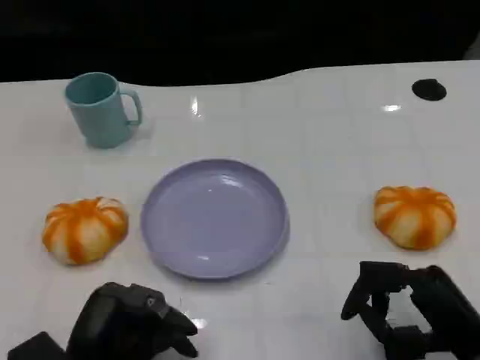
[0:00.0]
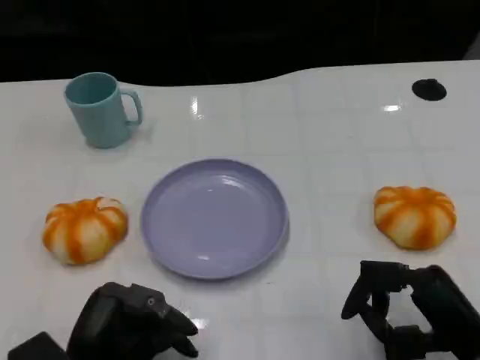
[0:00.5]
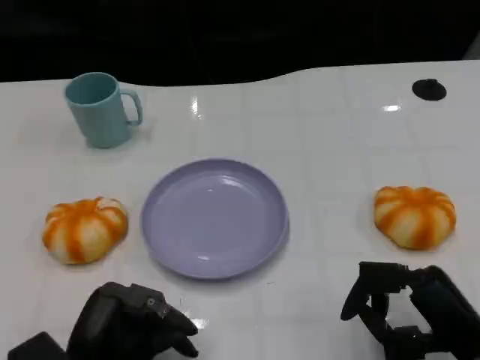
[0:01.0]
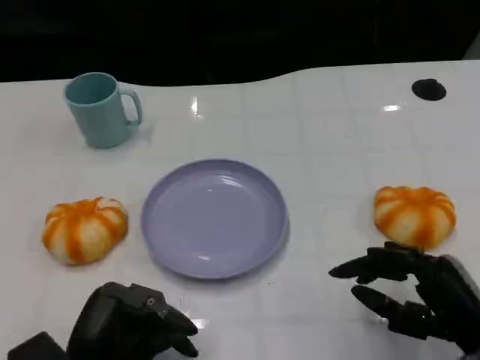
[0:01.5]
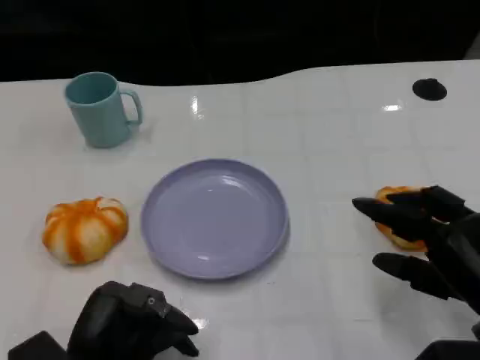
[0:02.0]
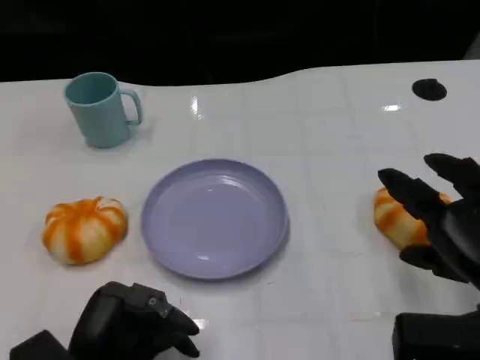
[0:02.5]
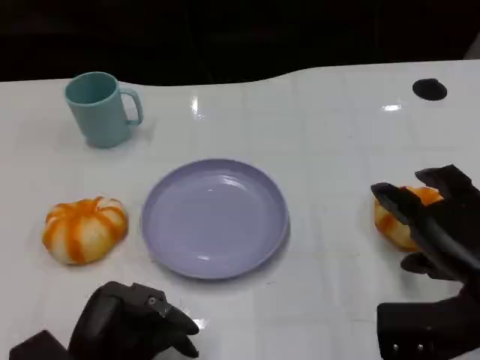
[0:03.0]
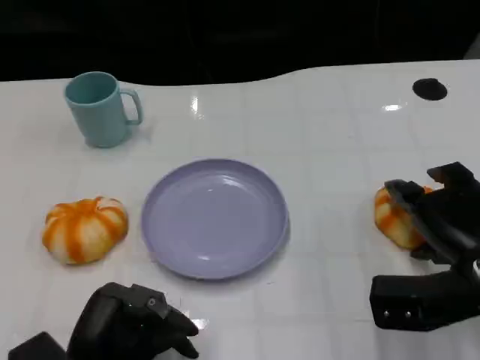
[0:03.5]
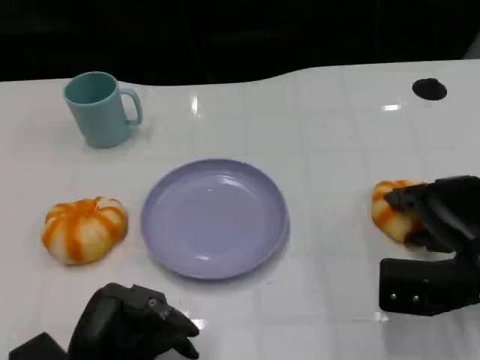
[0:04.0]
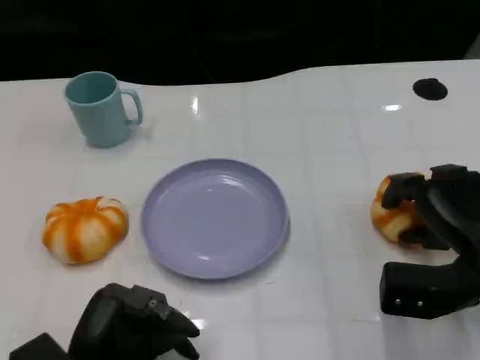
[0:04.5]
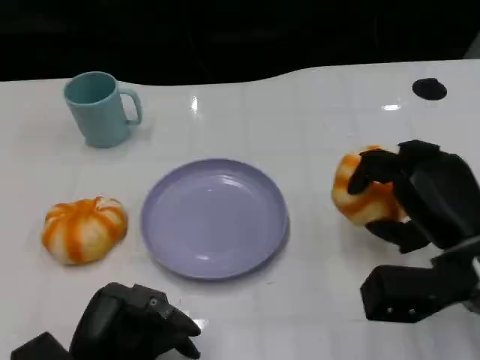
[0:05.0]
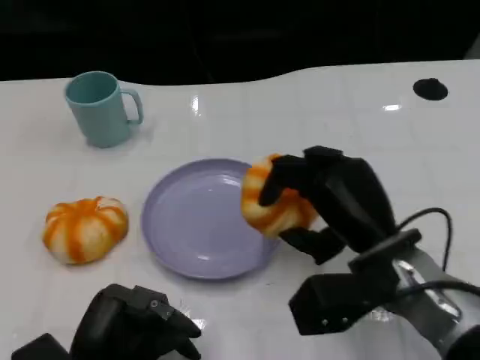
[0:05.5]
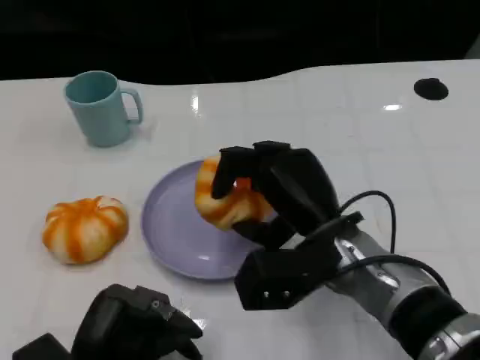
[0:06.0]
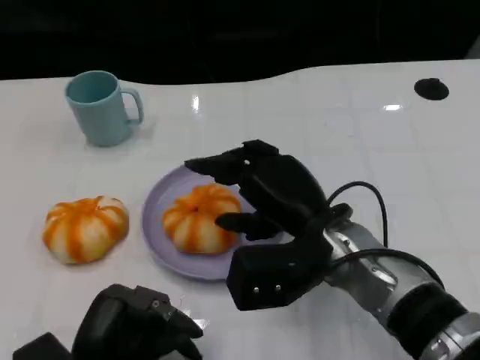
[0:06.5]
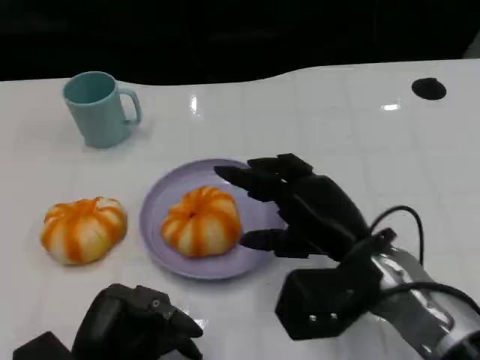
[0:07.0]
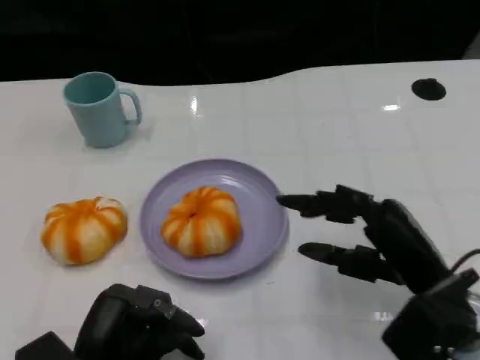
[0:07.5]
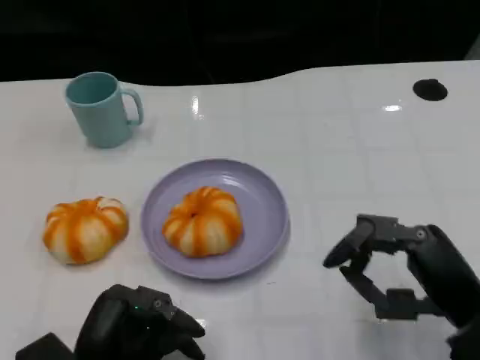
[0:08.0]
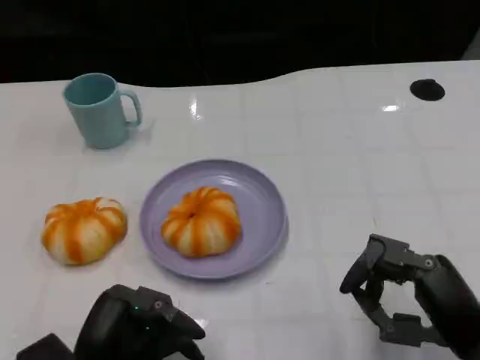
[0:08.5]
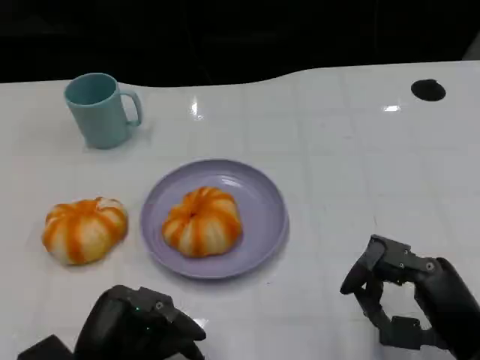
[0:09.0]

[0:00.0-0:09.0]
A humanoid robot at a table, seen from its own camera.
Task of the whole recording: Grasp the bread from the table and place it into the plate.
0:02.0 to 0:04.5: The right hand travels forward by approximately 5 cm.
0:04.5 to 0:07.0: The right hand travels to the left by approximately 10 cm.
0:07.0 to 0:09.0: The right hand travels to the right and backward by roughly 10 cm.

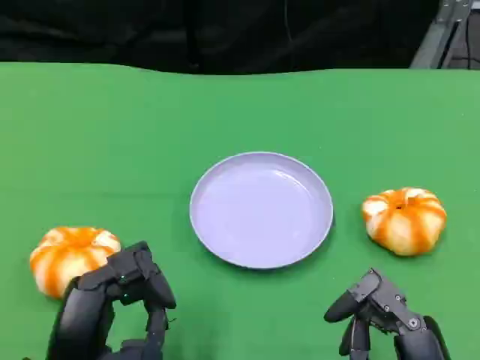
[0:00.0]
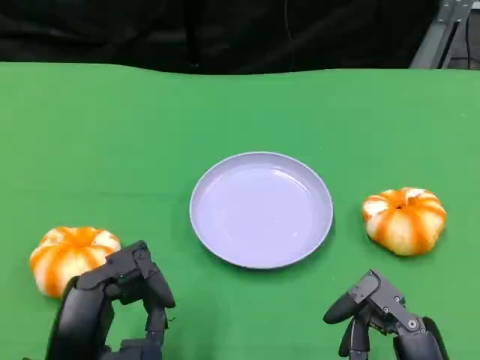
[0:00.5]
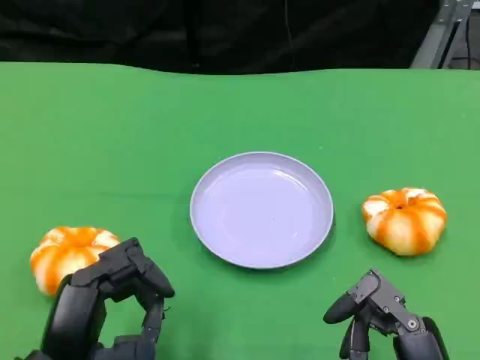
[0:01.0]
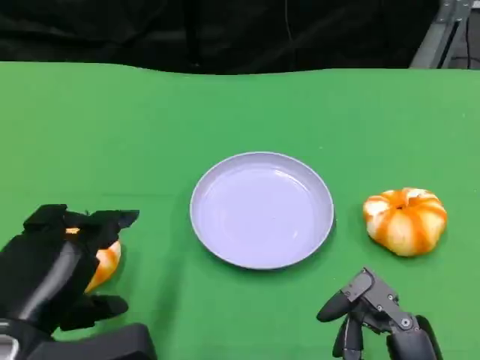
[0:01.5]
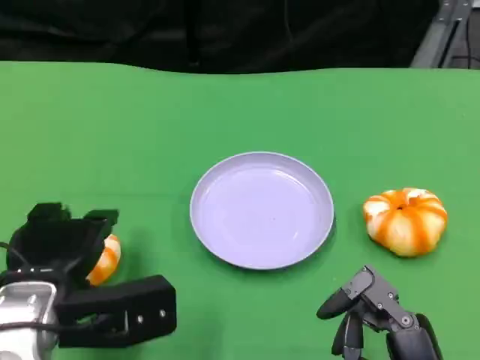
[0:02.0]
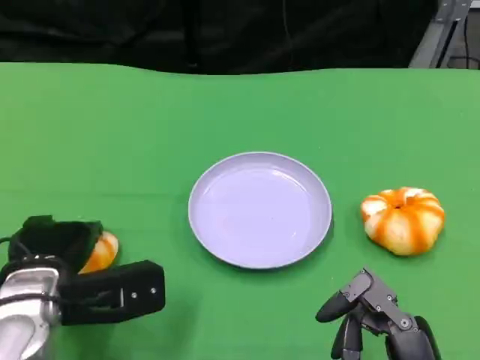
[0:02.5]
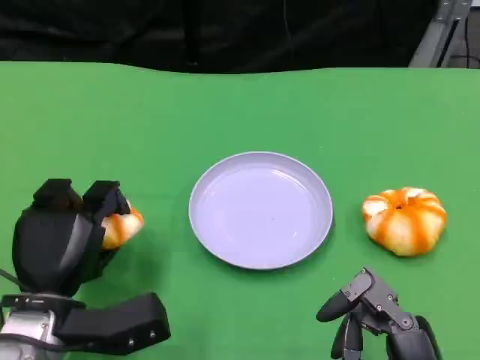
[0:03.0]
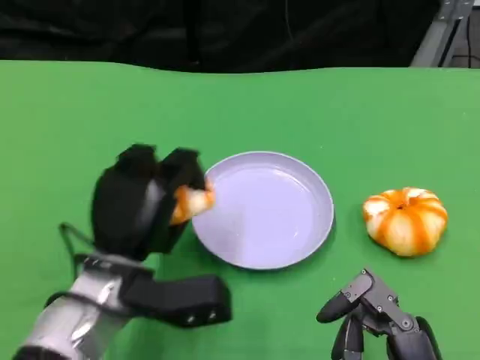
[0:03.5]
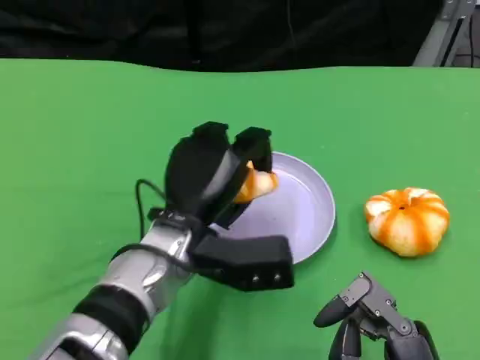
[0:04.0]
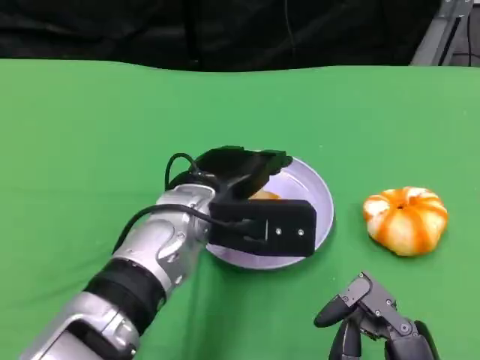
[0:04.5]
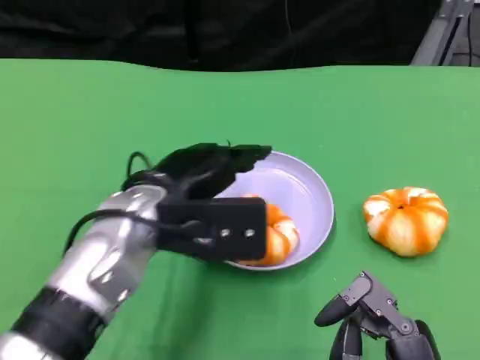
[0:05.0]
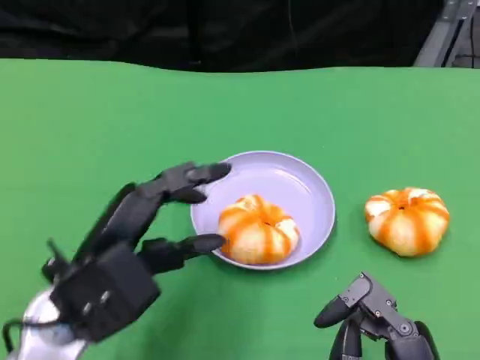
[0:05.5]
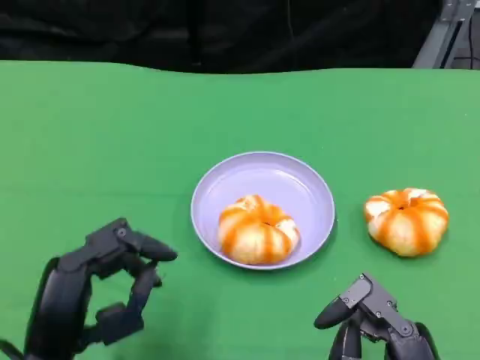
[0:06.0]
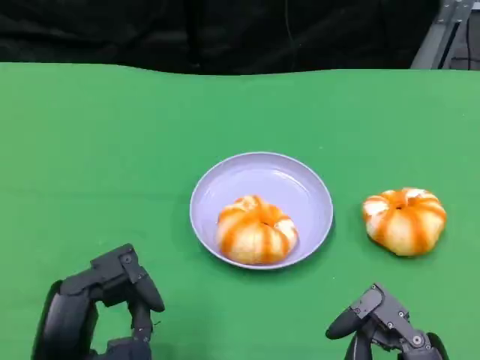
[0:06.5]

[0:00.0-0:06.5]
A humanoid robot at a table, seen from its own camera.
Task of the whole recording: Grasp the bread from the table and place it into the plate.
0:00.0 to 0:02.0: The left hand shifts about 10 cm forward.
0:02.0 to 0:04.5: The left hand goes approximately 15 cm to the right and forward.
0:04.5 to 0:06.5: The left hand is displaced backward and to the left by about 20 cm.

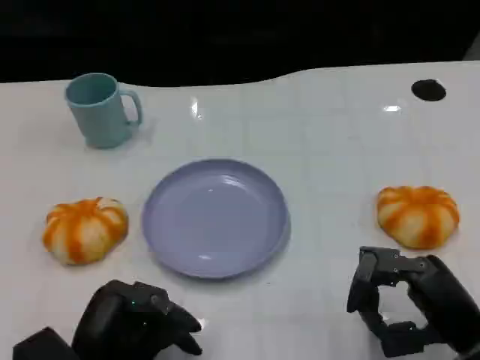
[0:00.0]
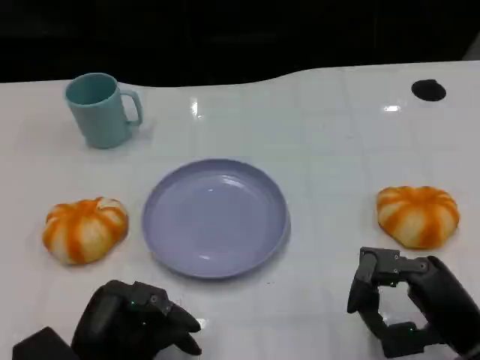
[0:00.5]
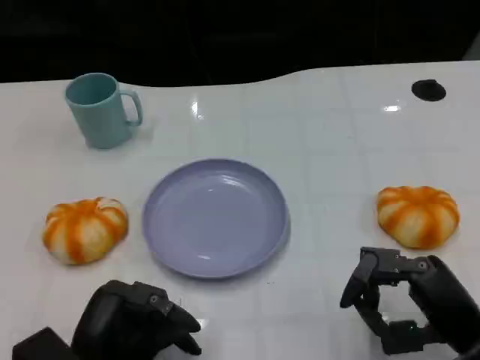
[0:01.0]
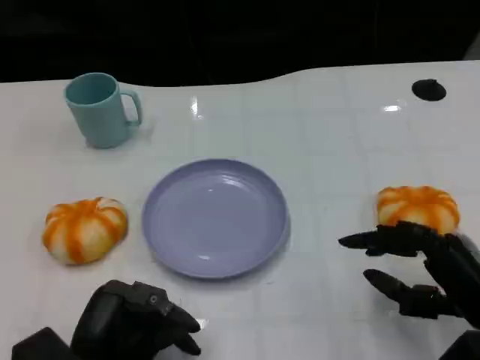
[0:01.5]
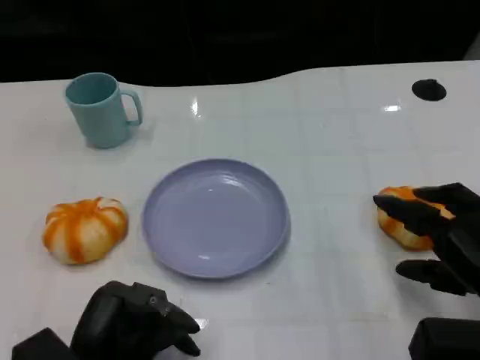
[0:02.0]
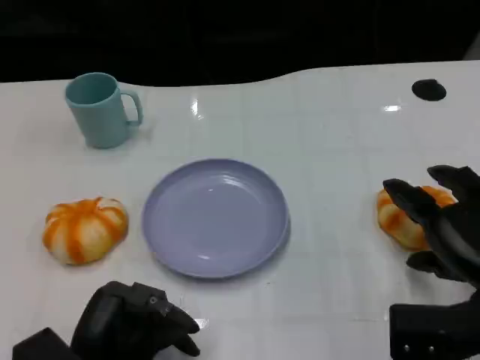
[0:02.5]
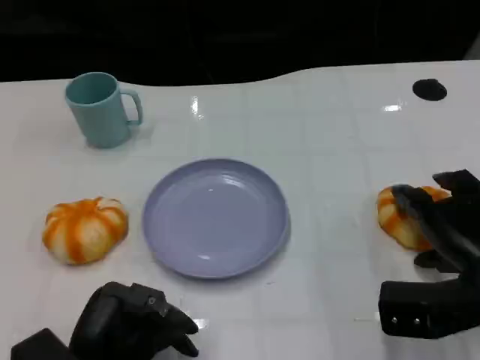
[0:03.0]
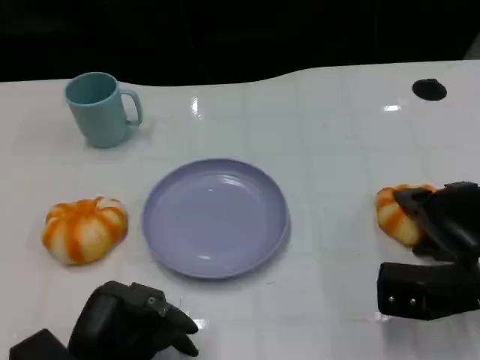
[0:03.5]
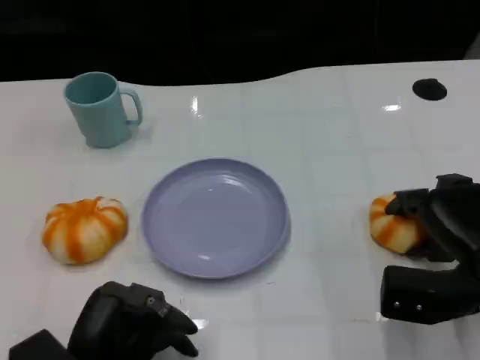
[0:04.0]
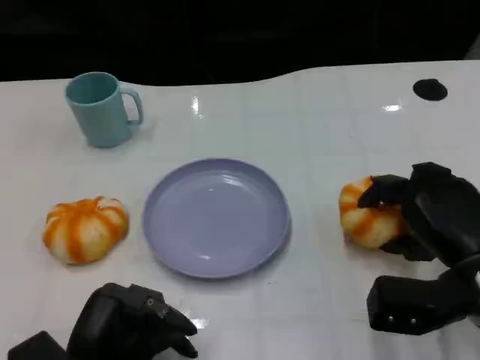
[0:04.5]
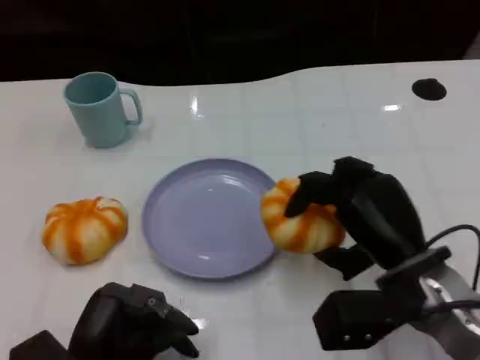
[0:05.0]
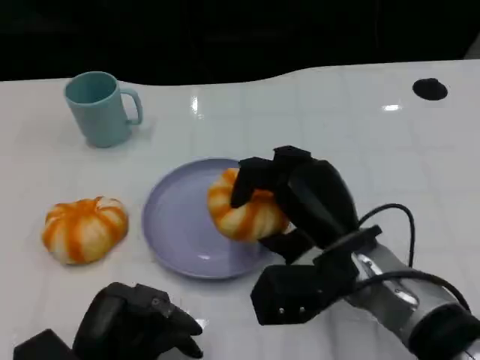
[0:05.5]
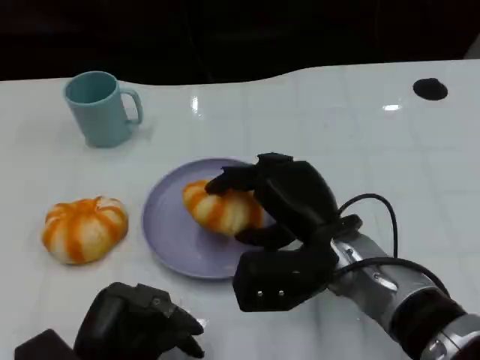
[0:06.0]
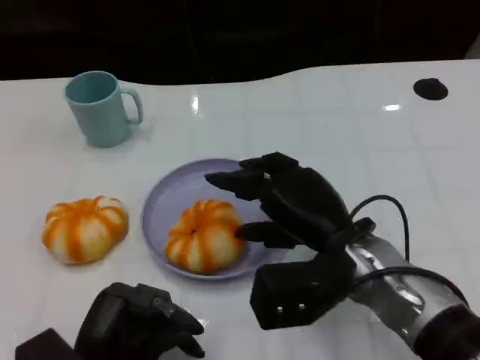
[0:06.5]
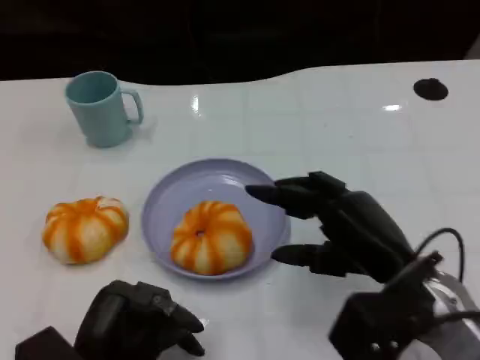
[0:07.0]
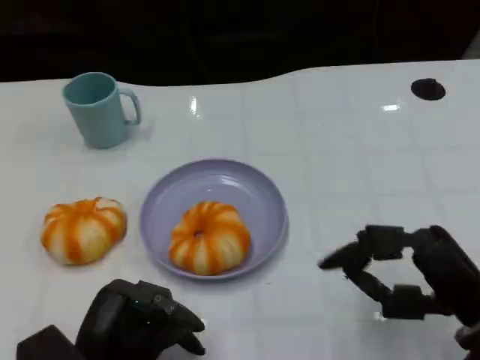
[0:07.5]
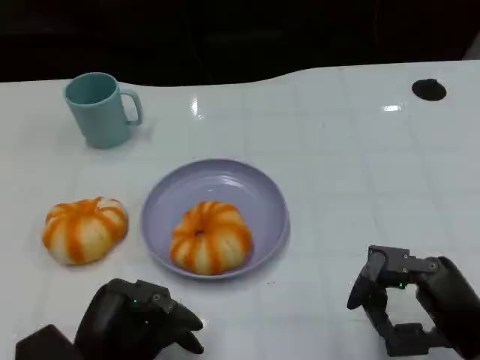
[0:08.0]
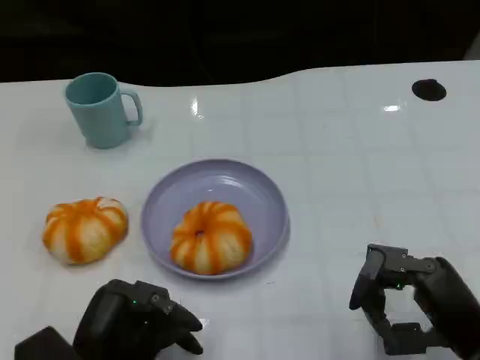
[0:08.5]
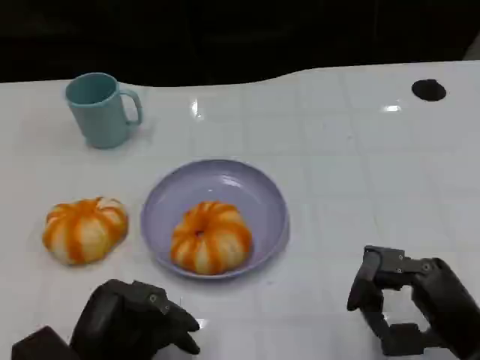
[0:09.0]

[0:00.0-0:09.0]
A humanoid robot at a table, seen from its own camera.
Task of the whole recording: Grasp the bread from the table and place it into the plate.
0:00.0 to 0:02.0: The right hand changes place by about 5 cm.
0:02.0 to 0:04.5: The right hand ends up some 5 cm from where it was.
0:04.5 to 0:07.0: The right hand moves to the left, about 5 cm.
0:07.0 to 0:09.0: The right hand moves to the right and backward, approximately 10 cm.

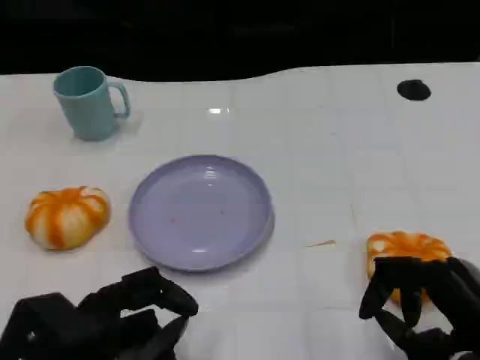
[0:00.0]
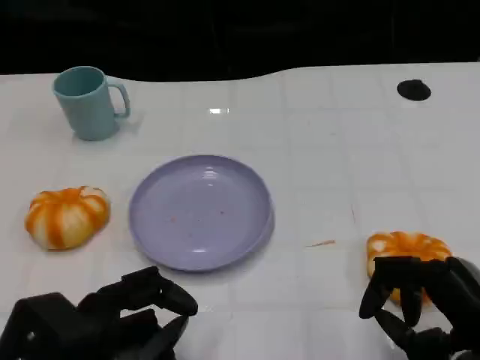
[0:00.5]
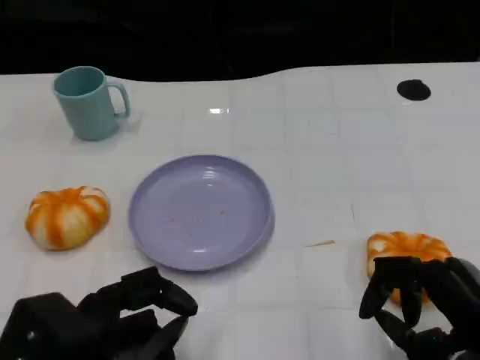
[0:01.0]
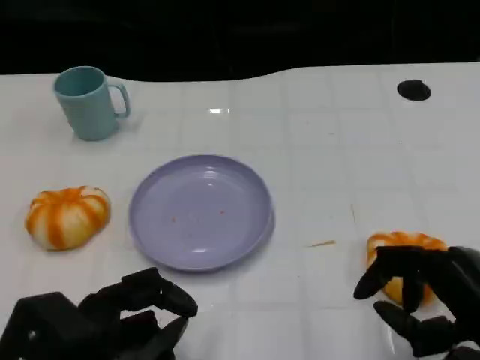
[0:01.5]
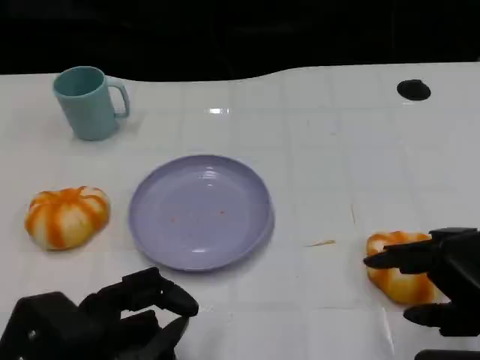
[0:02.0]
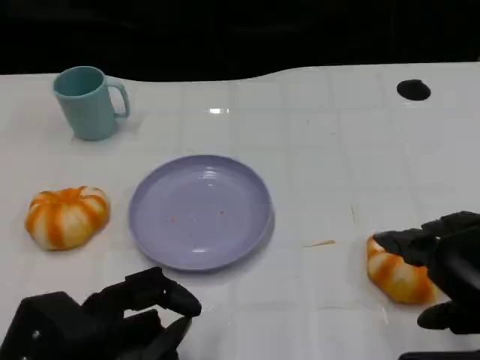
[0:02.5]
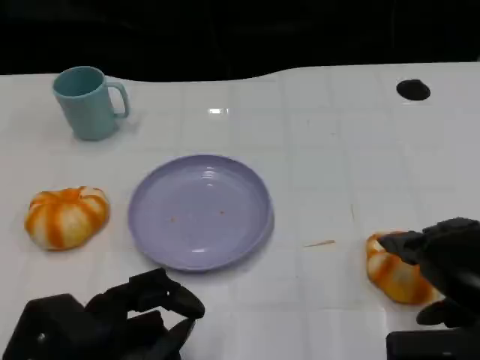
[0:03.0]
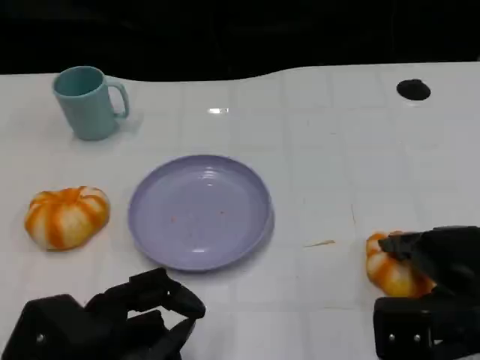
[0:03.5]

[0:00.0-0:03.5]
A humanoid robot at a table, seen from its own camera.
Task of the whole recording: Grasp the bread from the table and place it into the plate.
0:00.0 to 0:02.0: The right hand travels upward by approximately 5 cm.
0:02.0 to 0:03.5: The right hand goes some 10 cm forward and downward.
